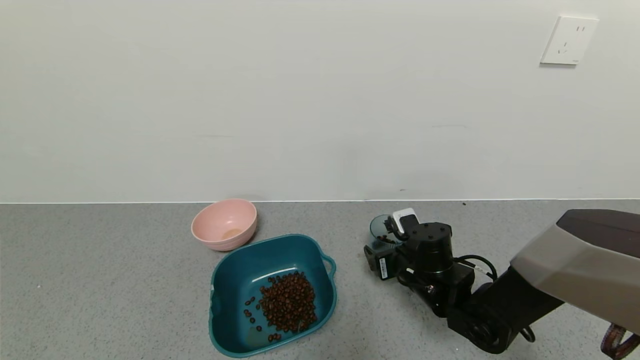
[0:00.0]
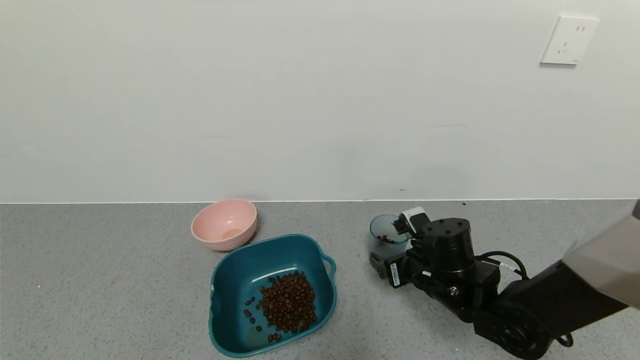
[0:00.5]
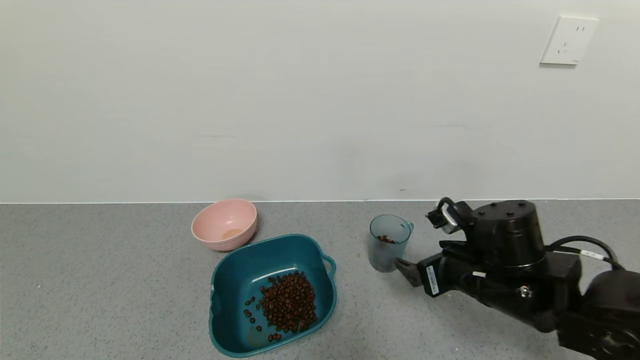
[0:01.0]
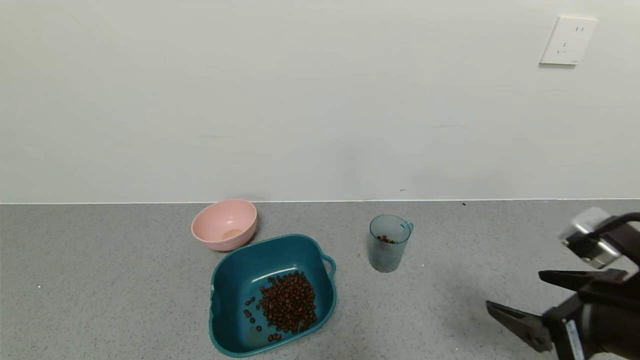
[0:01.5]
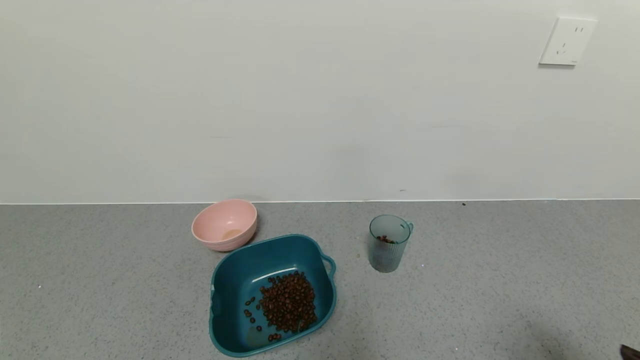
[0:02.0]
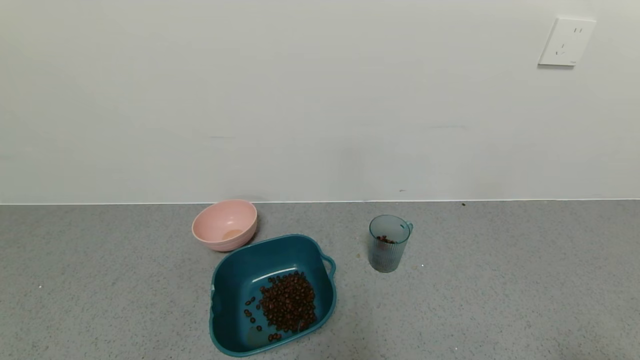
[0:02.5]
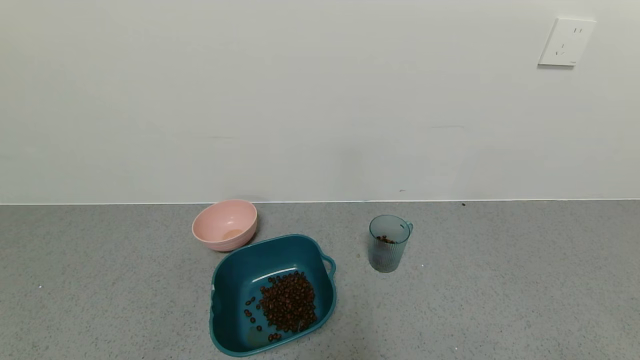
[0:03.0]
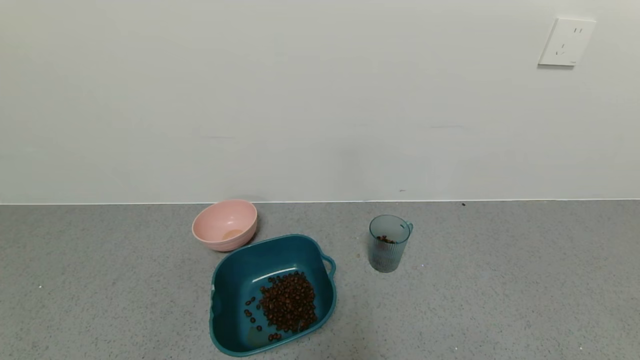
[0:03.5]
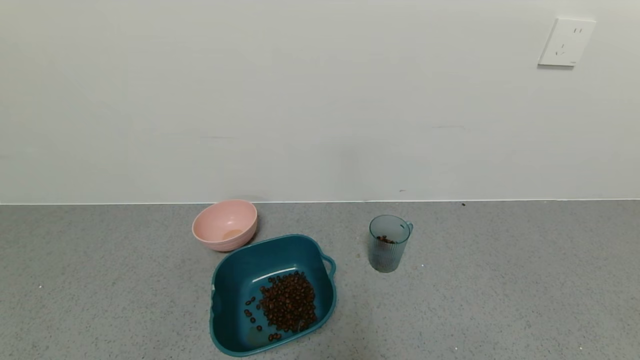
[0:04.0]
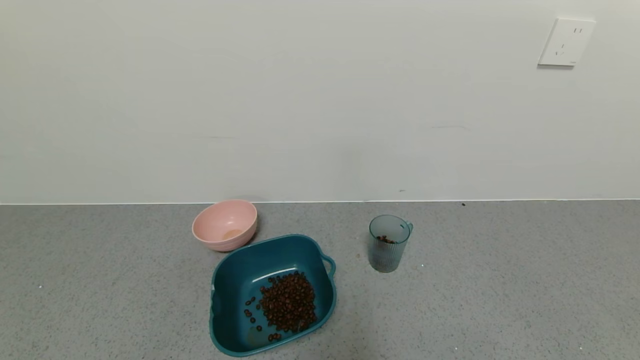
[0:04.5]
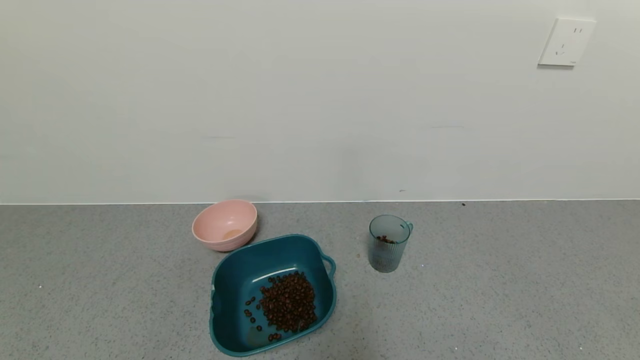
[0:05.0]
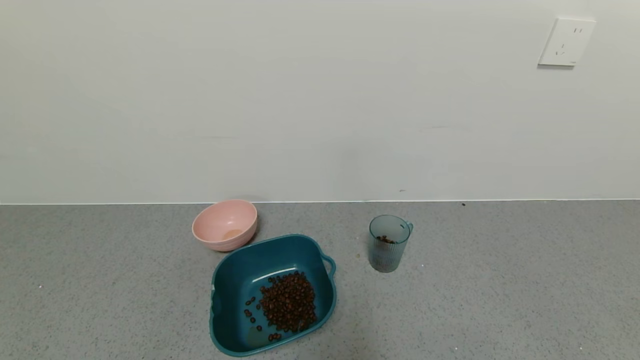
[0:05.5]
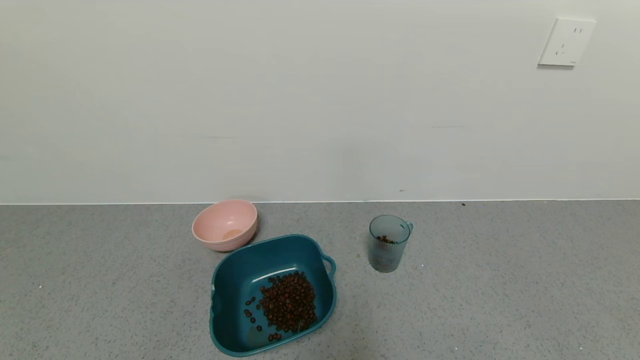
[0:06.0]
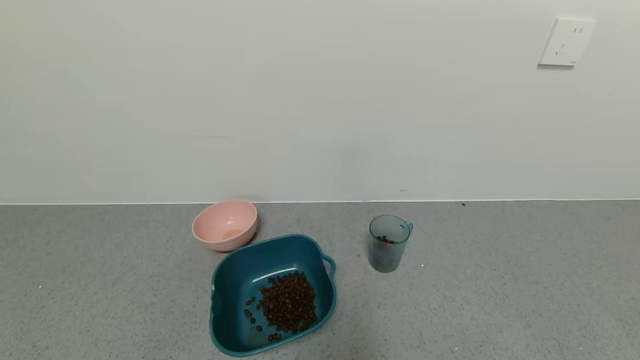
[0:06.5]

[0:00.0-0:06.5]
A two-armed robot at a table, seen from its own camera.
Task of the whole recording: use a gripper to pick up the cup and pour the solid into a bowl or tray.
0:00.0 to 0:02.0: The right gripper heads backward, to the right and upward, covering roughly 40 cm.
0:02.0 to 0:04.5: The right gripper moves downward and backward, some 15 cm.
0:04.5 to 0:06.5: Neither gripper changes place.
